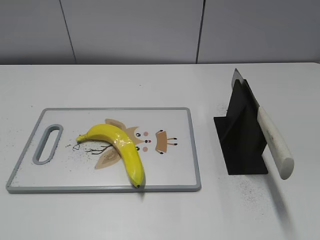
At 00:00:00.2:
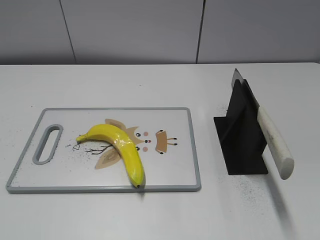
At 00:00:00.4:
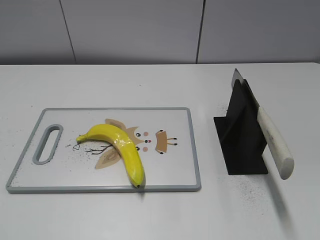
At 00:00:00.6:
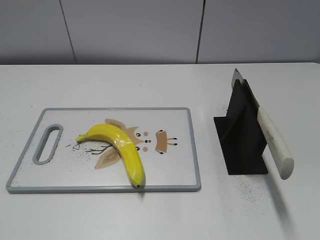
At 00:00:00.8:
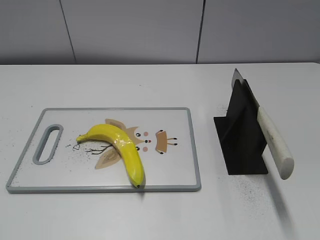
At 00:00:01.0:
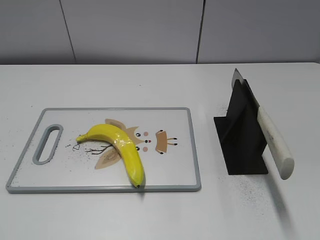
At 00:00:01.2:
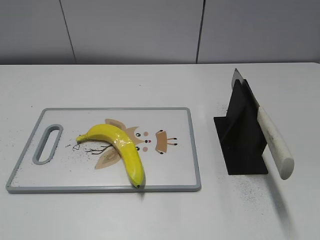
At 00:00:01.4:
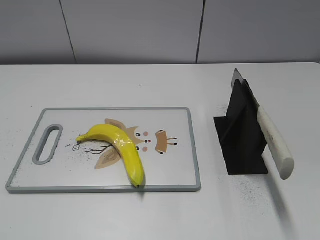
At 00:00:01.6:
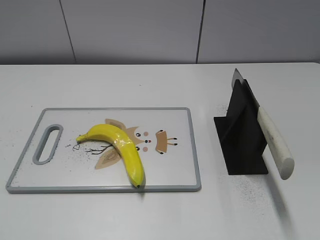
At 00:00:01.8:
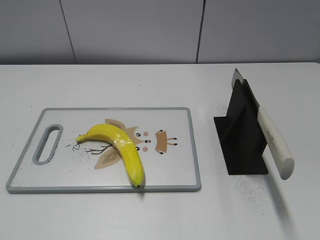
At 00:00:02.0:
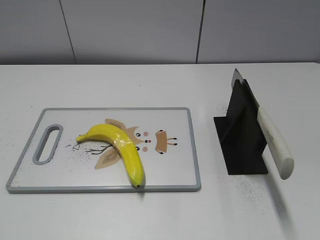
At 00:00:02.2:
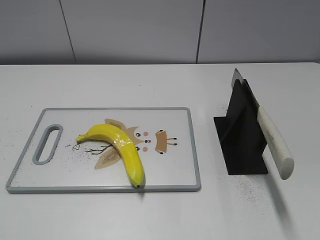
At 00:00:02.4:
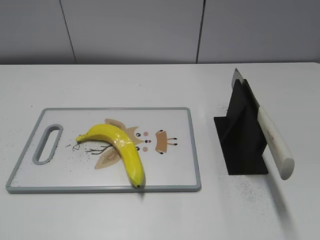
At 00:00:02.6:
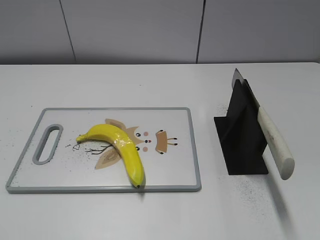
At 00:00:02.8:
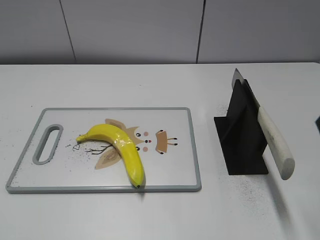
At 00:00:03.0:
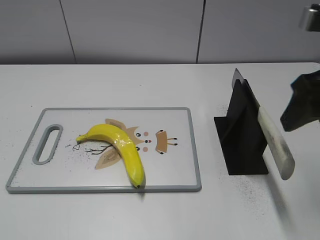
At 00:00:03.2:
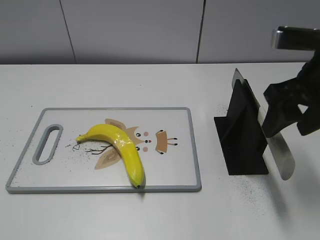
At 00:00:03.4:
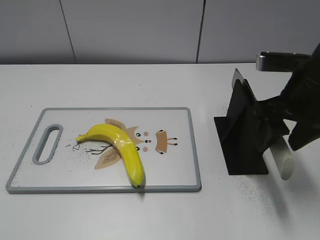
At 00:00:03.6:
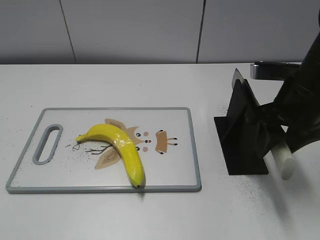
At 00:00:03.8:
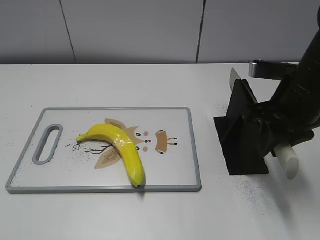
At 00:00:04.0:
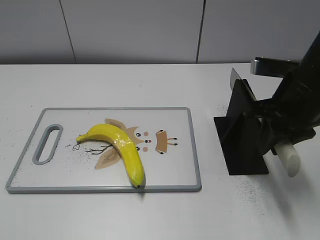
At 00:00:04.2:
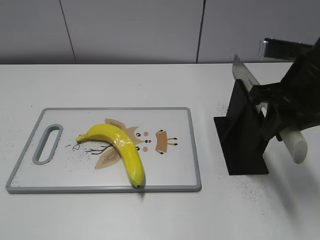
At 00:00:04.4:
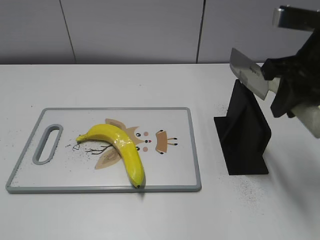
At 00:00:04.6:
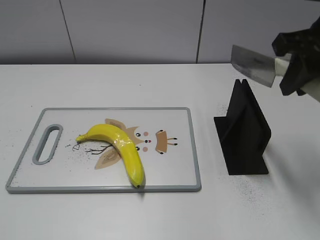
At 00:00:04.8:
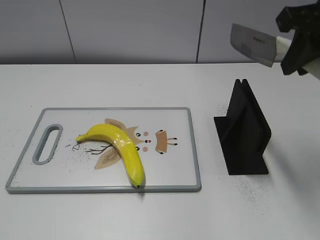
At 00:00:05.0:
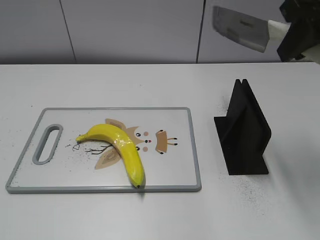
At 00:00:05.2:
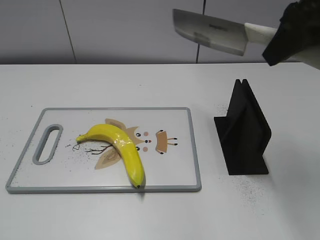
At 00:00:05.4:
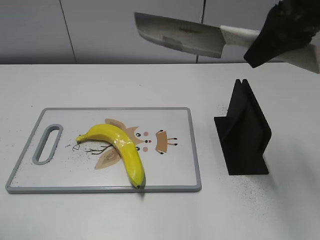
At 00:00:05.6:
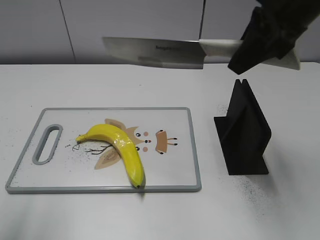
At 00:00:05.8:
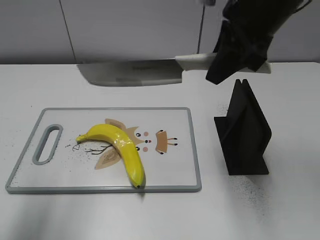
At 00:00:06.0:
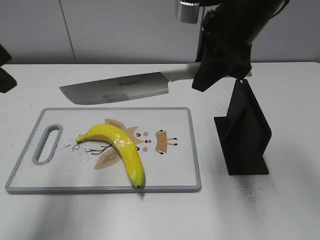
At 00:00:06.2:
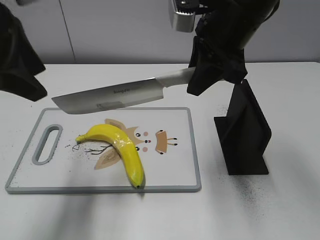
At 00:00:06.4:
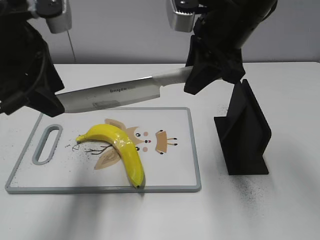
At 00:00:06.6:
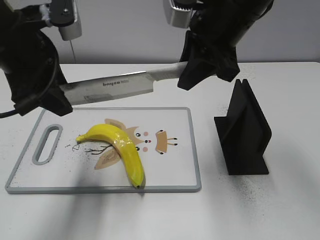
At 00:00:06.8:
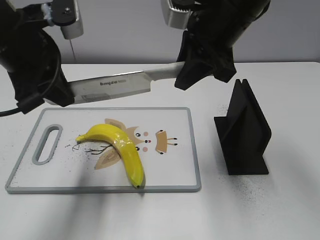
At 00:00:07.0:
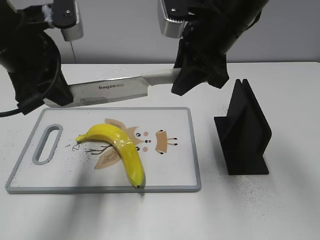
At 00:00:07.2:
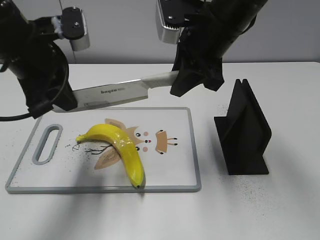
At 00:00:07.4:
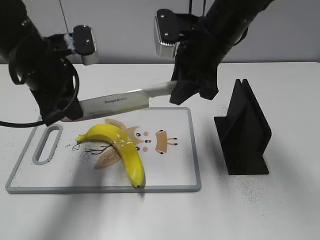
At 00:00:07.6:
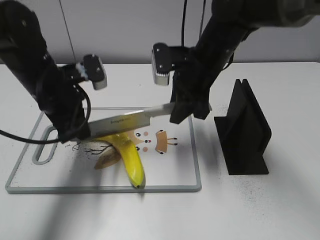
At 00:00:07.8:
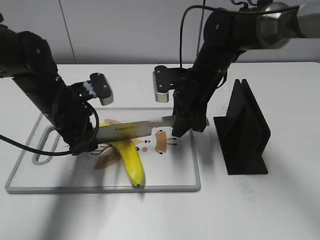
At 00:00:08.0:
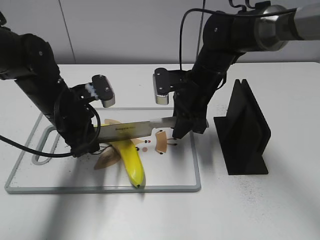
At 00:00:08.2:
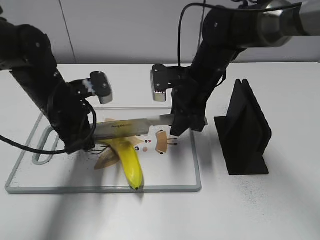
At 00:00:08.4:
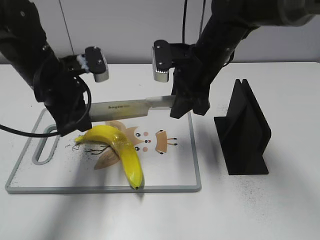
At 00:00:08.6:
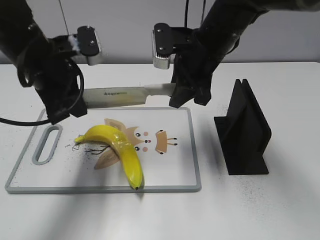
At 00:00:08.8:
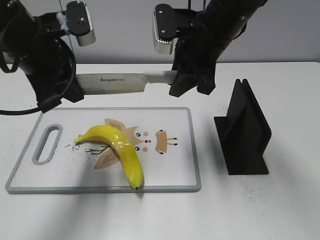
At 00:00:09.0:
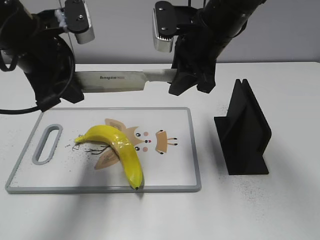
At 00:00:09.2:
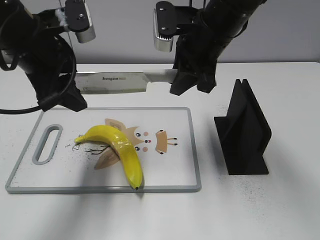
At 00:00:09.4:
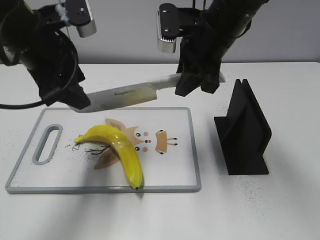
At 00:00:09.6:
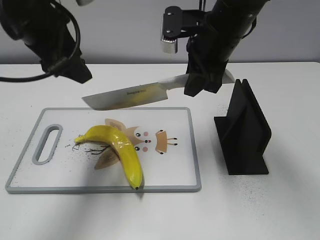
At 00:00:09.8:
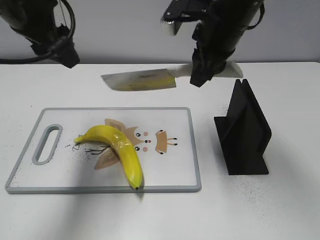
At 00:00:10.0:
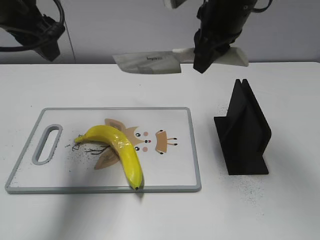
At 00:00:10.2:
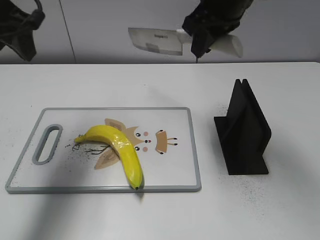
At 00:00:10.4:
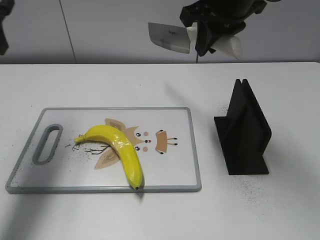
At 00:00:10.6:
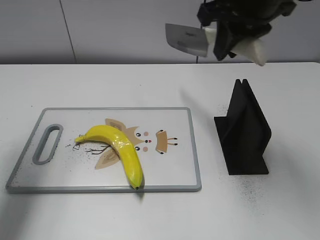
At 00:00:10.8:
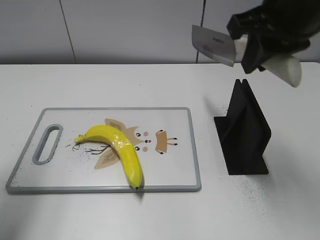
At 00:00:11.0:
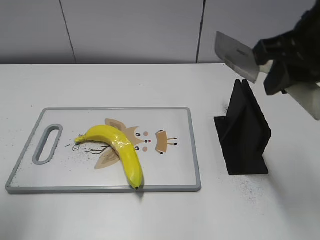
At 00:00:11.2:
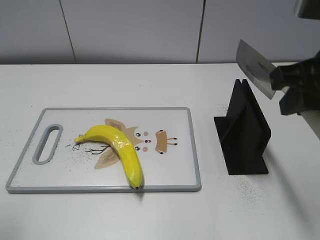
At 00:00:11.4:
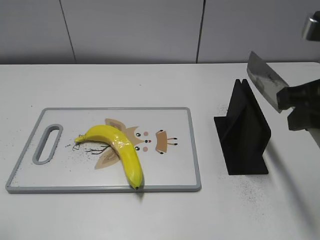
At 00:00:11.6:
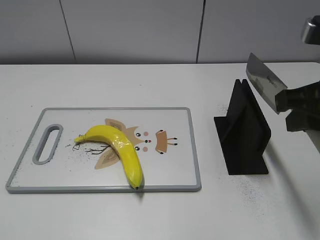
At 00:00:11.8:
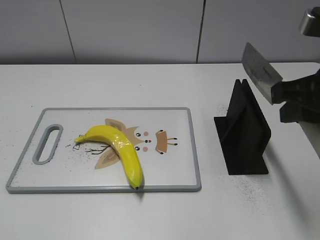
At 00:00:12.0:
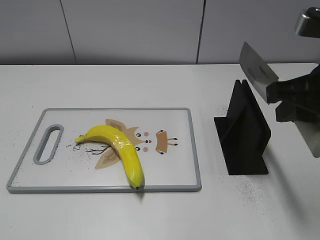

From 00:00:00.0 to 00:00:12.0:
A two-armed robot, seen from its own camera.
Task of the whole recording: cut plastic banana.
Step, from 00:00:00.0 to 00:00:04.6: Grab the knife handle with your right hand.
Step, from 00:00:04.8 to 00:00:08.4: Lift the knife with your right hand.
Step, from 00:00:08.8 to 00:00:09.8: Cut the banana with your right hand.
Step, from 00:00:10.0 to 00:00:10.8: Lift the knife with your right hand.
From 00:00:01.6 to 00:00:03.0: The right gripper moves forward, roughly 25 cm.
From 00:00:03.0 to 00:00:04.4: The right gripper moves about 10 cm downward and comes back, and closes.
From 00:00:04.4 to 00:00:06.0: The right gripper is displaced to the left and forward by about 10 cm. The left gripper heads forward, covering some 25 cm.
From 00:00:06.0 to 00:00:07.6: The right gripper moves downward, roughly 10 cm, while the left gripper moves downward, forward and to the right, approximately 20 cm, and closes its fingers.
From 00:00:07.6 to 00:00:09.0: The grippers both shift upward by some 5 cm.
From 00:00:09.0 to 00:00:10.4: The left gripper moves to the left and upward, approximately 10 cm, and opens its fingers, while the right gripper travels upward by about 5 cm.
From 00:00:10.4 to 00:00:12.0: The right gripper is displaced backward and to the right by approximately 20 cm, while the left gripper moves backward, about 35 cm.

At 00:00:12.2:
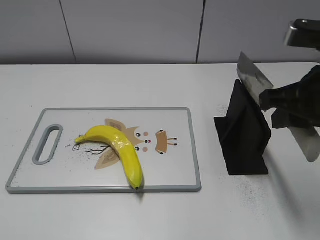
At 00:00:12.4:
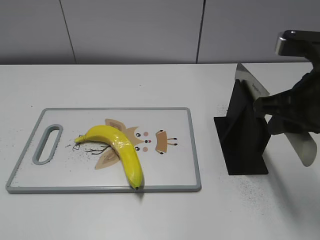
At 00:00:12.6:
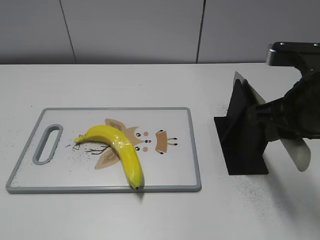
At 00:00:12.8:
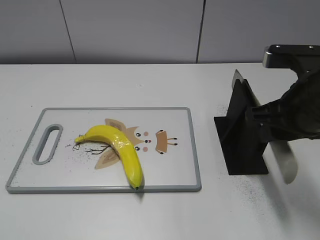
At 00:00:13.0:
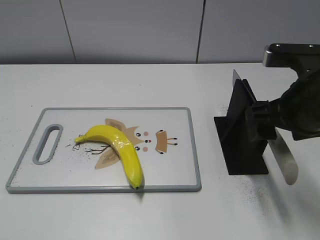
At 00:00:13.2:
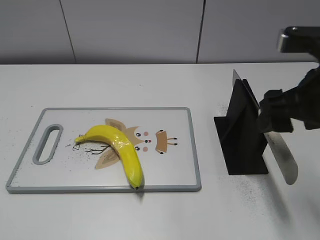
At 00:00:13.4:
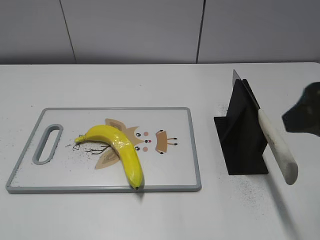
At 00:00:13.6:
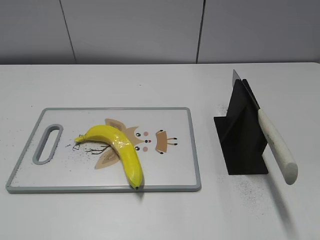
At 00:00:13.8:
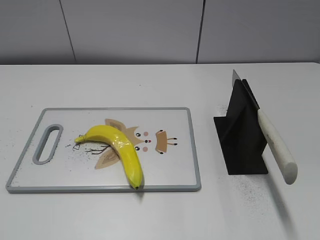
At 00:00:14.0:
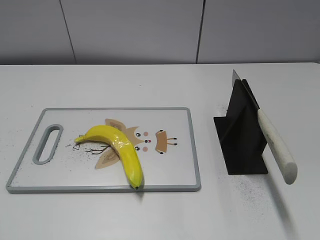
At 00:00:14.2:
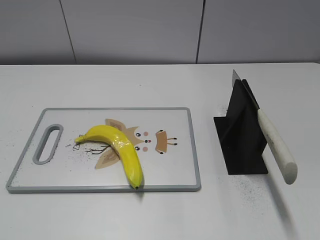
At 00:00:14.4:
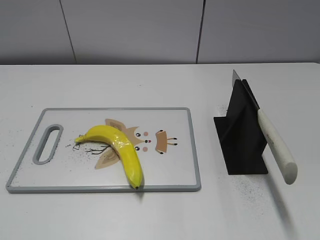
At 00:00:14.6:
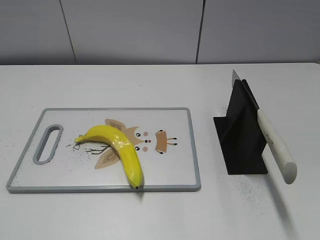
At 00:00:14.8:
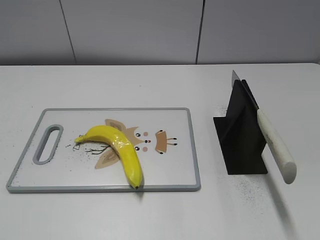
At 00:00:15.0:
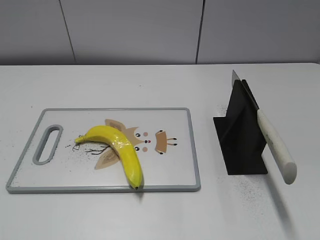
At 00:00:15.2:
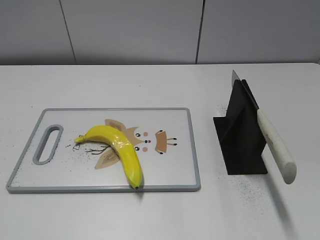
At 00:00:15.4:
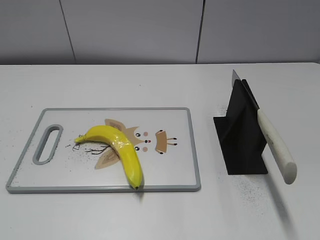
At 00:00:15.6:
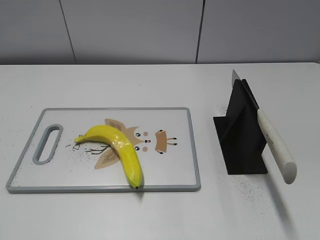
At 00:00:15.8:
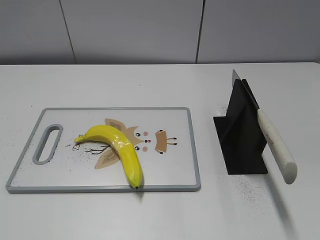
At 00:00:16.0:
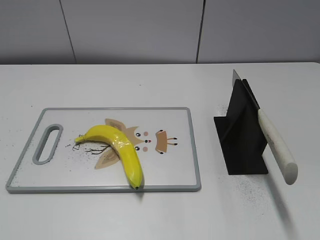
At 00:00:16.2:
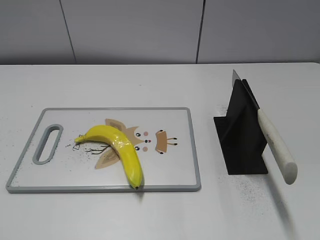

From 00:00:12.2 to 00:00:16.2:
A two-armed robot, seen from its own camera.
Task of the whole recording: cut plastic banana.
Step, from 00:00:12.2 to 00:00:15.8: Place the knife on the storage rack with your right hand.
From 00:00:12.2 to 00:00:13.6: The right gripper goes roughly 10 cm backward and upward, and opens its fingers.
From 00:00:13.6 to 00:00:14.8: The right gripper is displaced backward and to the right by roughly 15 cm.
